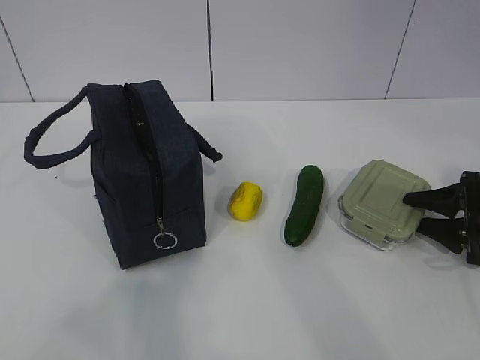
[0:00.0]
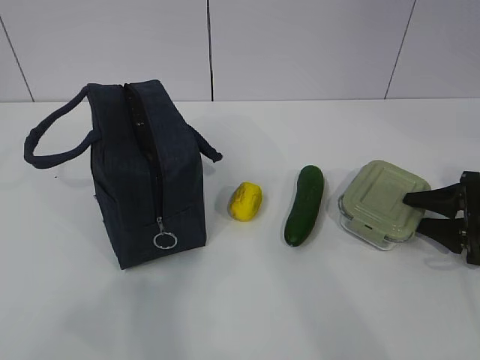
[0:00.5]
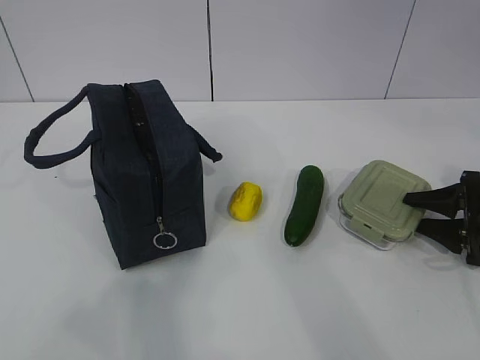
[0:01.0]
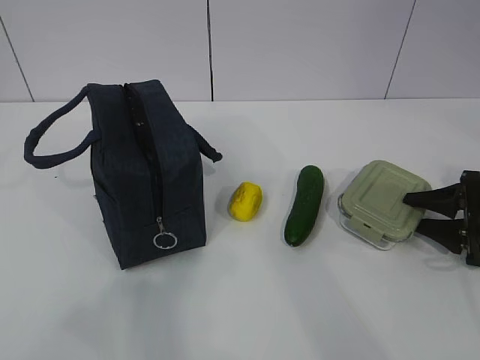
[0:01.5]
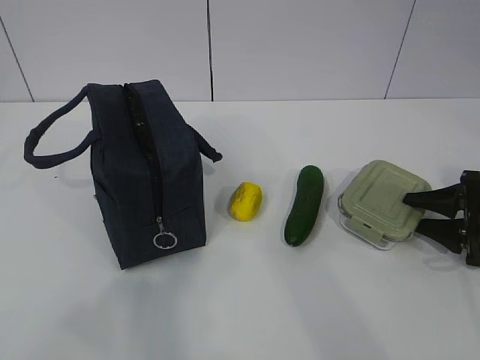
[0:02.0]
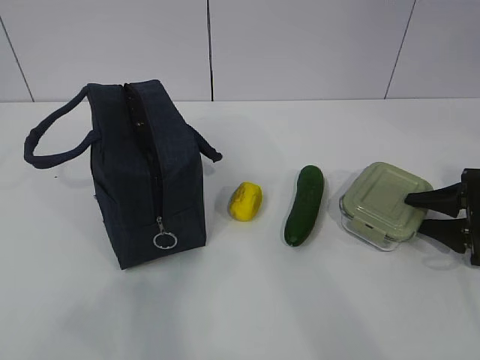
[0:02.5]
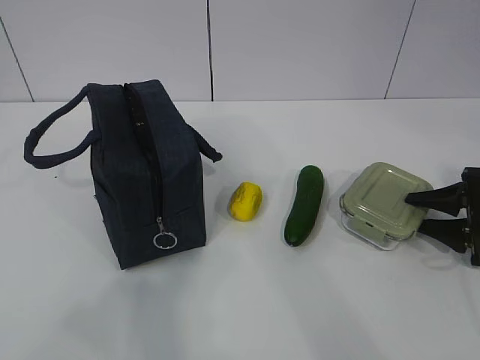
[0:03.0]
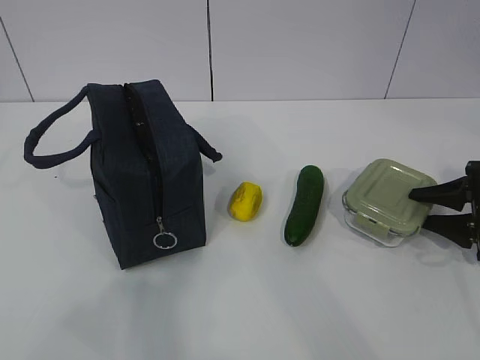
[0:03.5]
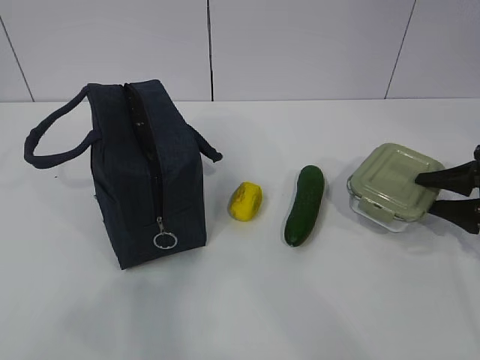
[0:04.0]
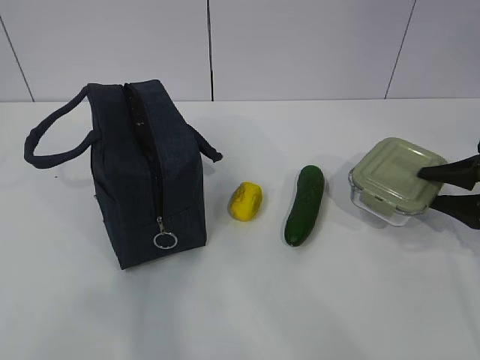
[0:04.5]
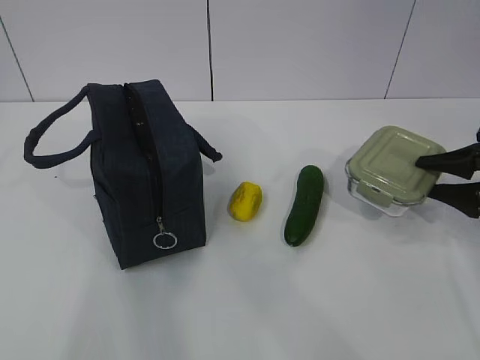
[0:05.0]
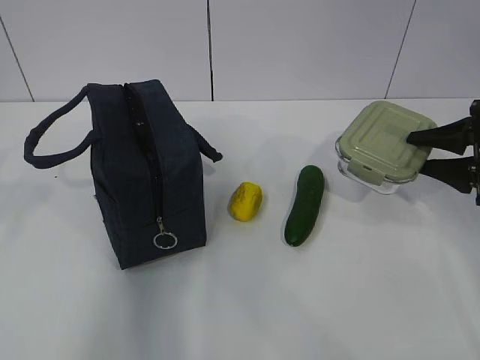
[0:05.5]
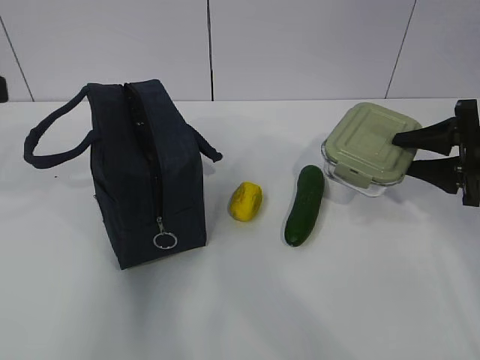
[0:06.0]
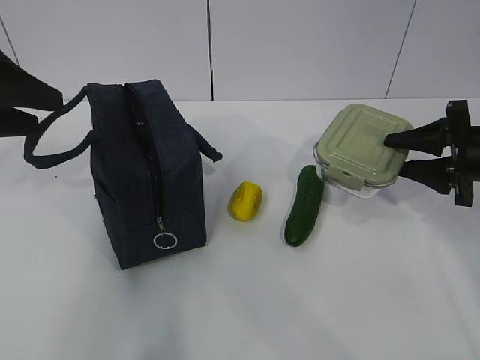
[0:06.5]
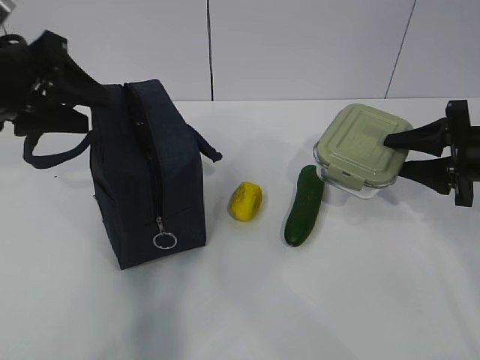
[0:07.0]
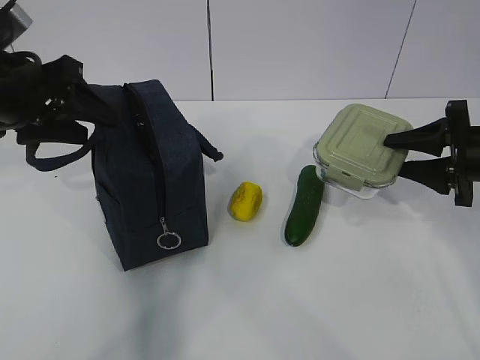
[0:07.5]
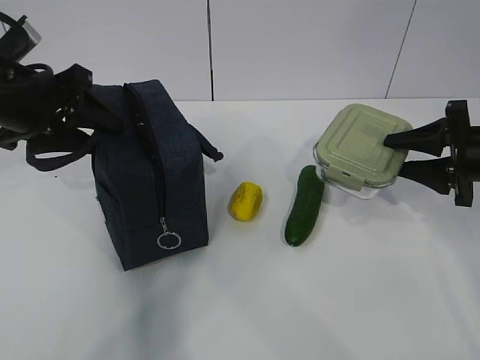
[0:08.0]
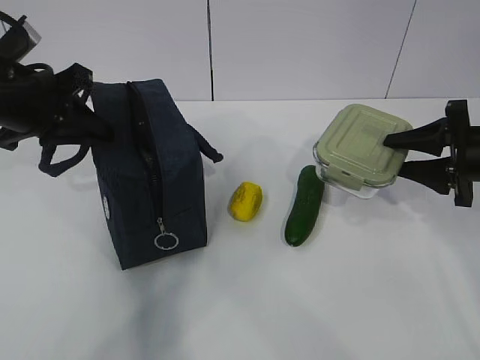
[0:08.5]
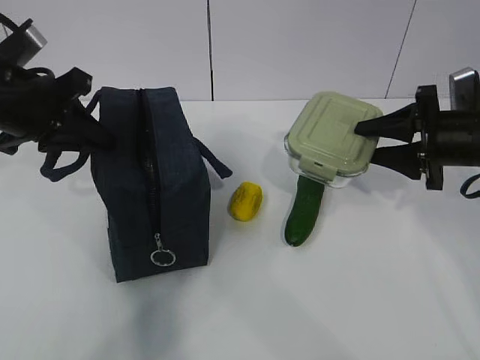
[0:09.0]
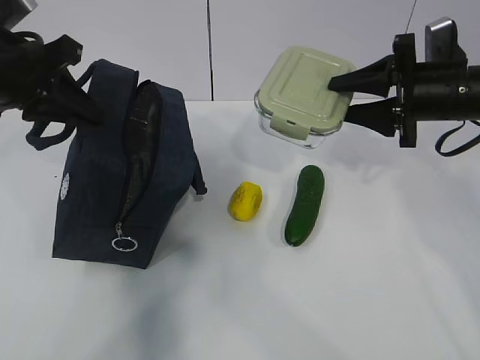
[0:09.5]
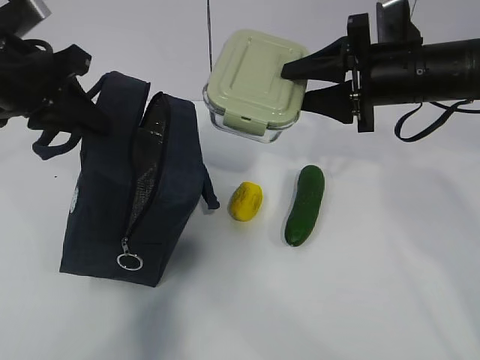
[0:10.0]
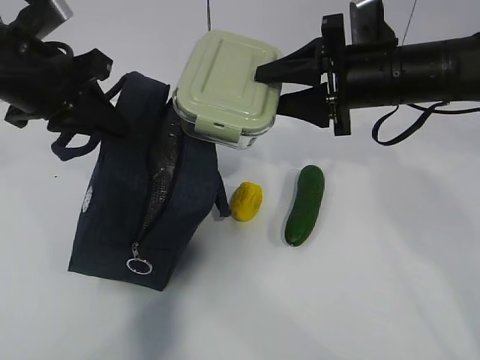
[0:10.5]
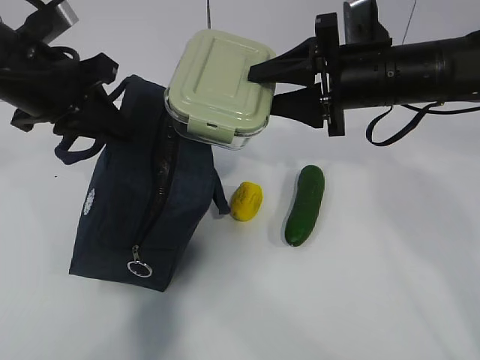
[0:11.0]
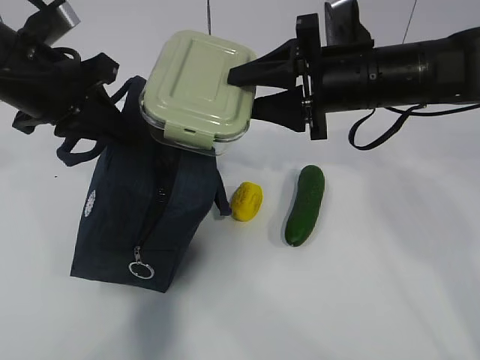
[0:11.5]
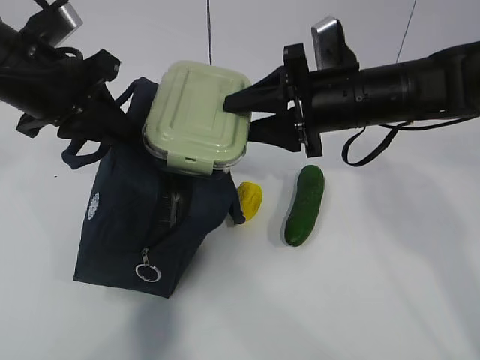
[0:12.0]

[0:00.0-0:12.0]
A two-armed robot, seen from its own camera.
Step, 0:00.0 to 0:06.5: Grab the lunch bag with your left hand.
Step, 0:07.0 to 0:09.5: Place it into the bag with your right hand.
0:00.0 to 0:02.0: Both grippers stay put.
0:02.0 to 0:04.0: The grippers stay close to where they were, moving slightly.
0:04.0 to 0:06.0: The right gripper travels upward by roughly 5 cm. Meanwhile the left gripper is displaced forward by some 20 cm.
0:06.0 to 0:08.0: The left gripper is displaced forward and downward by roughly 15 cm.
0:08.0 to 0:10.0: The left gripper closes its fingers. Meanwhile the right gripper travels to the left and upward by some 15 cm.
0:10.0 to 0:12.0: The right gripper is displaced to the left by approximately 5 cm.

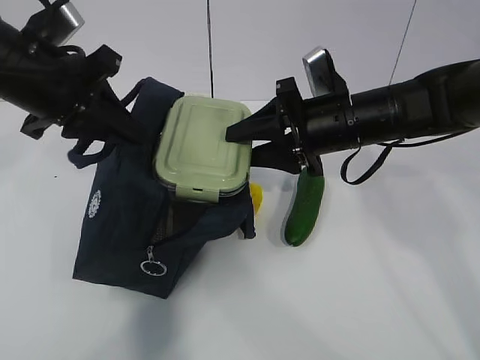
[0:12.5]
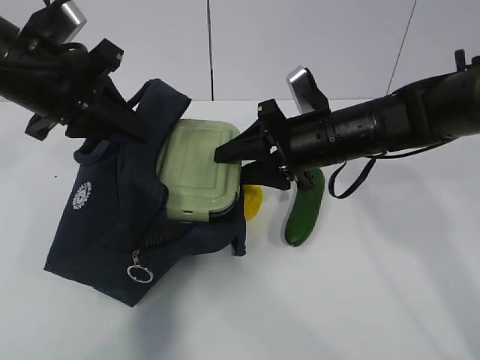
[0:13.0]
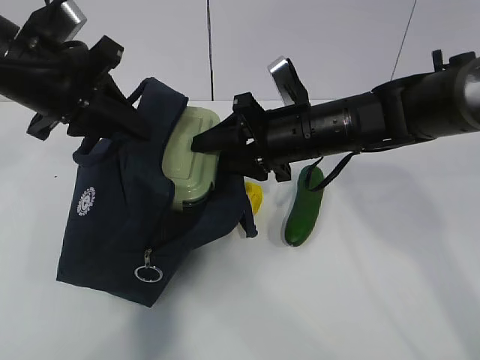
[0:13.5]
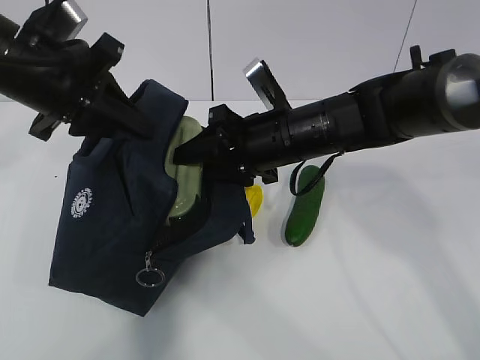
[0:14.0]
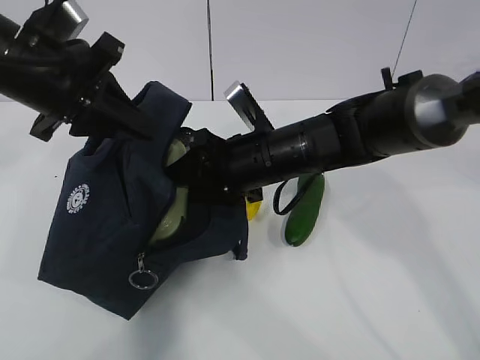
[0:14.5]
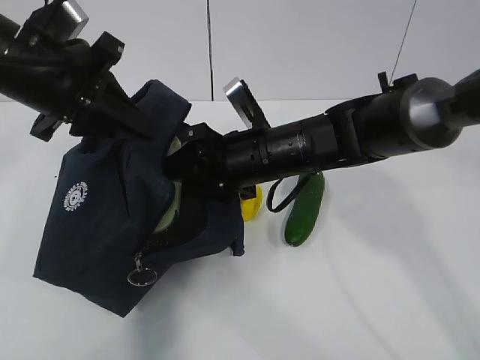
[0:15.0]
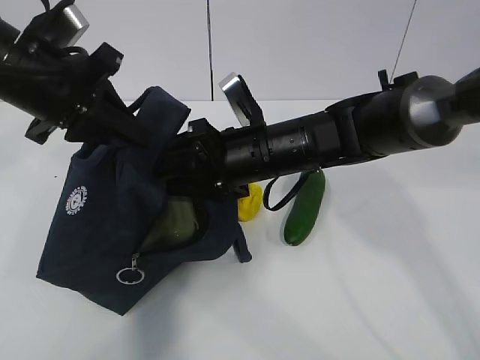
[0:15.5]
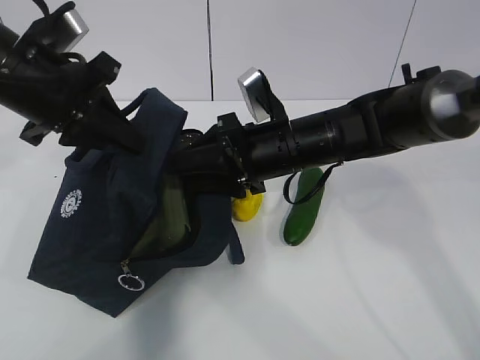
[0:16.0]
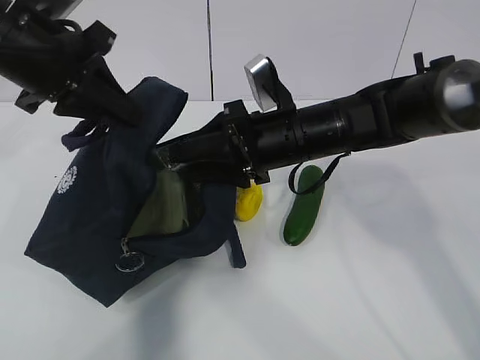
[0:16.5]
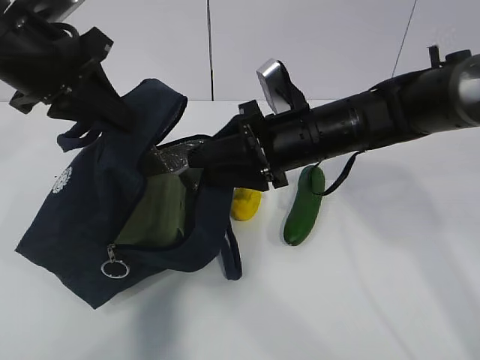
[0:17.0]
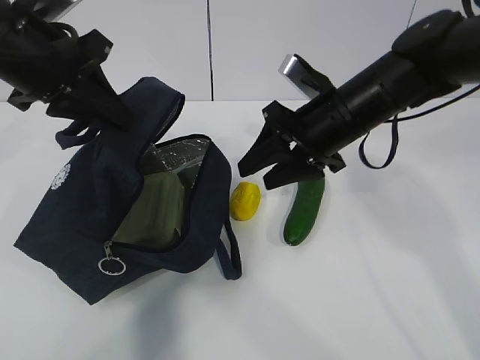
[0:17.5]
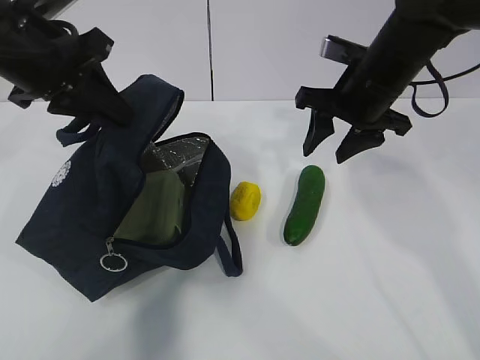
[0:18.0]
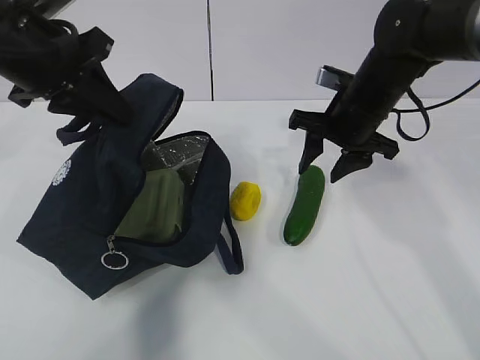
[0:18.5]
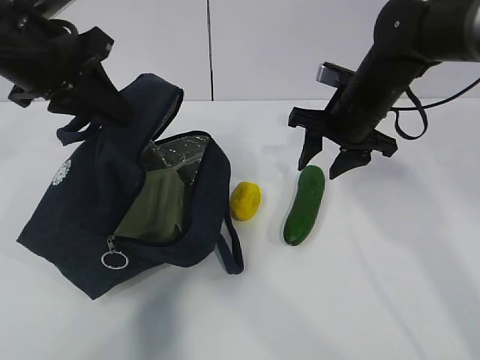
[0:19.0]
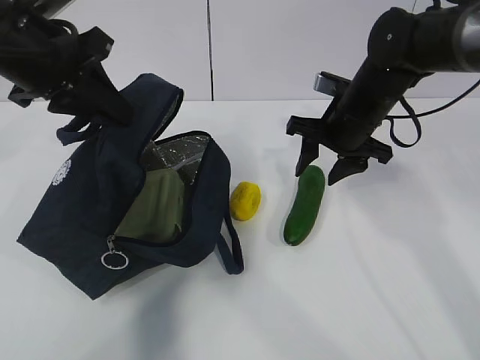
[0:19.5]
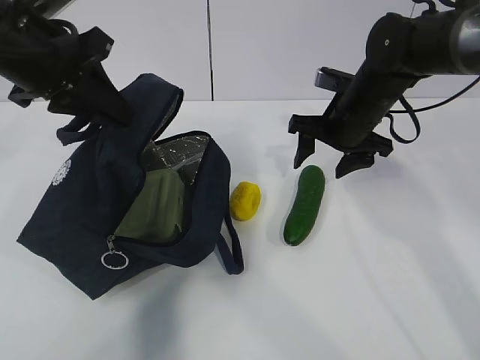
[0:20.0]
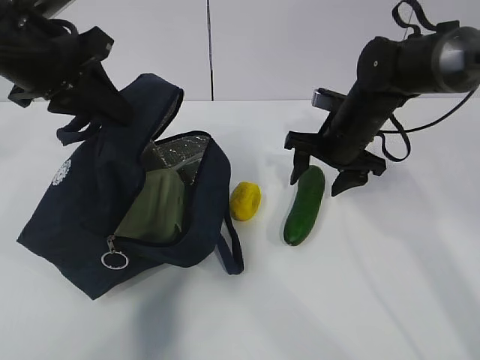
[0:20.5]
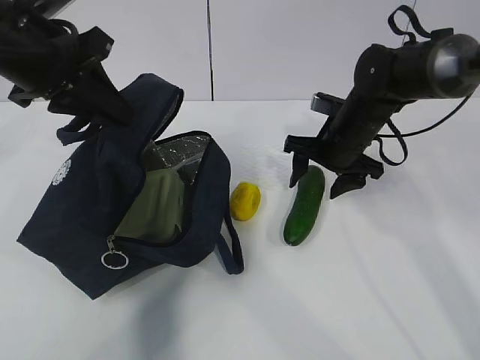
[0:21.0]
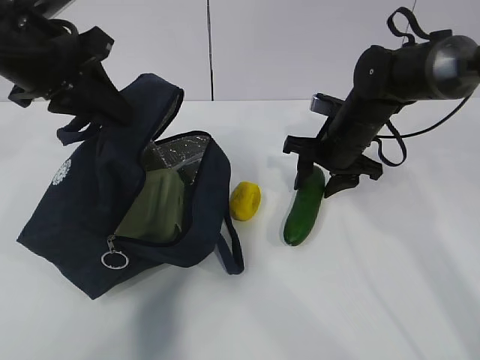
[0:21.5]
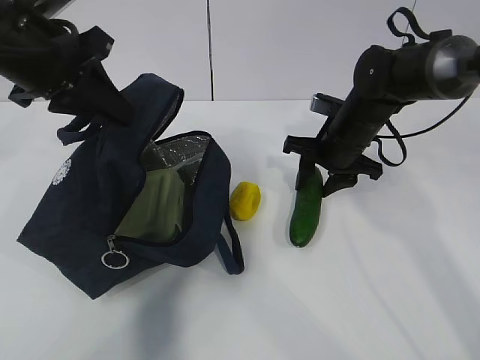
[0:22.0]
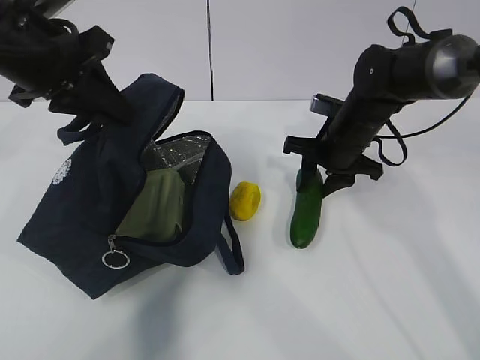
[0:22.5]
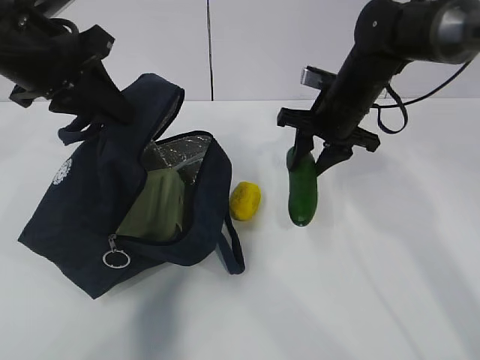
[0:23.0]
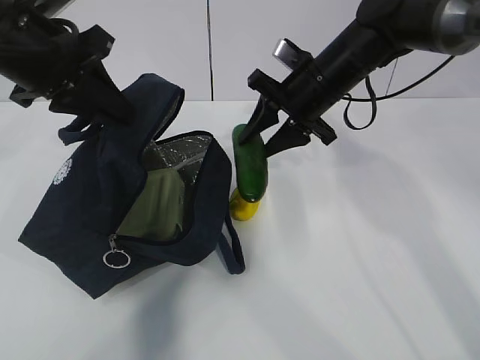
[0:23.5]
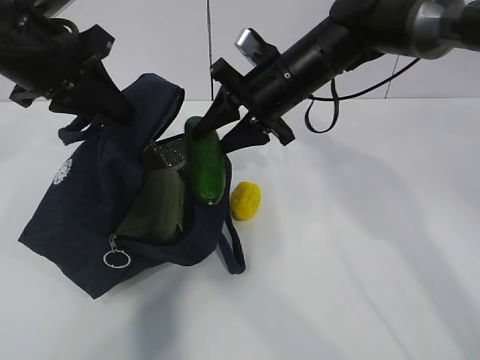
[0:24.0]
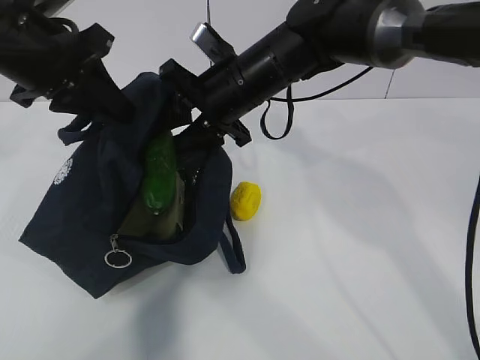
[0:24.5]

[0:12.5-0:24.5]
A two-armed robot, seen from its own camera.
Step, 0:12.5 to 0:15.5: Grab the cucumber with your right hand.
Step, 0:16.0 to 0:18.0: Place it into the bag with your right hand.
Step, 0:18.5 to 0:22.0: Grab the lemon with your right hand.
0:12.5 to 0:14.5: The right gripper travels to the left by some 10 cm.
0:14.5 to 0:16.5: There are only small adjustments of the grippers.
0:16.5 to 0:18.5: The right gripper heads to the right and forward, covering roughly 10 cm.
0:18.5 to 0:20.5: The right gripper changes place by some 5 cm.
0:20.5 to 0:22.5: The right gripper closes up.
0:22.5 to 0:24.5: The right gripper moves to the left and upward, about 15 cm.

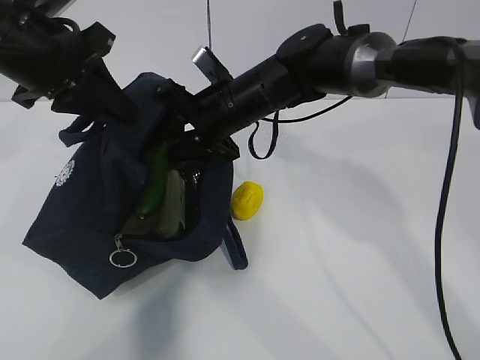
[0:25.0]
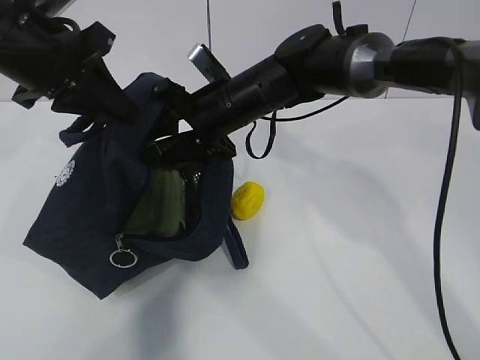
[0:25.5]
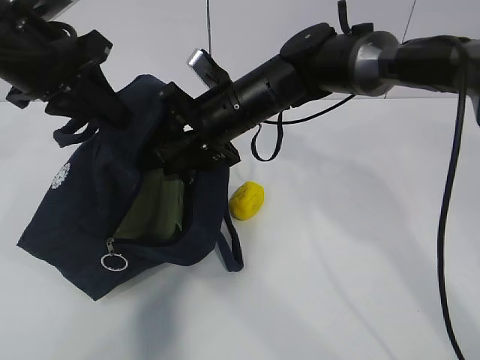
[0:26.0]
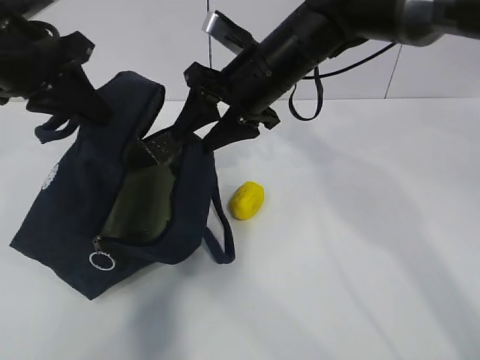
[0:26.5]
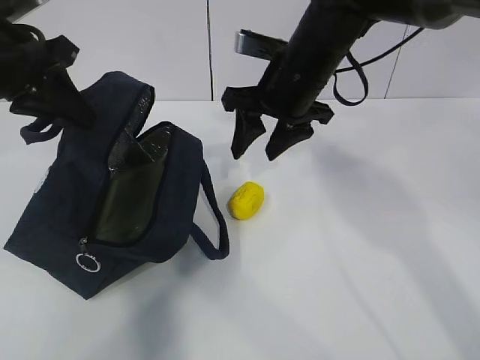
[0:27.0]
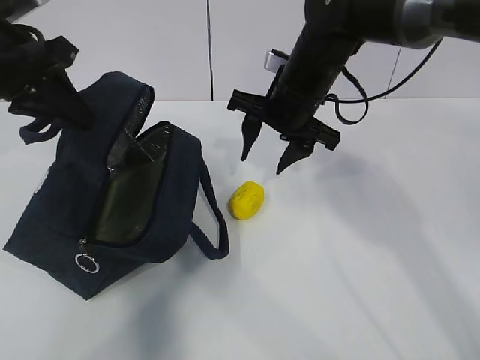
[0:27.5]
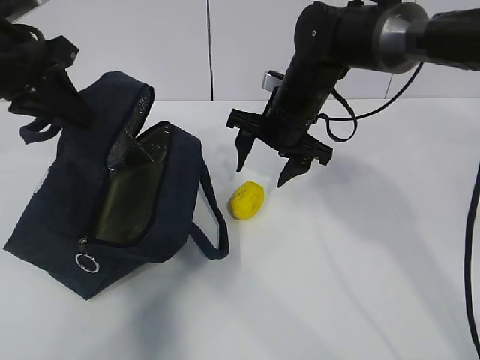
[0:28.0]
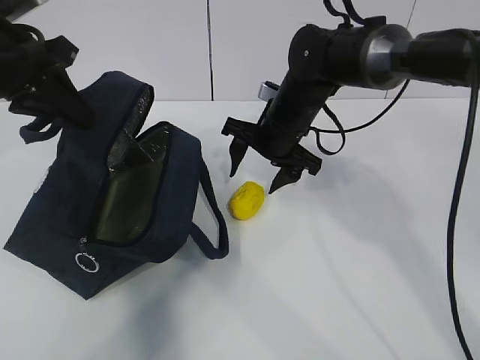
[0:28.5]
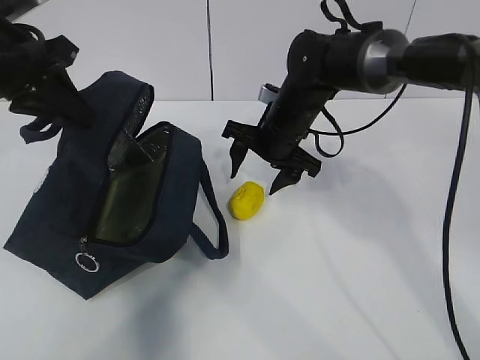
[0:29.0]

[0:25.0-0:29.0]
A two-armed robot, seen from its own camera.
Step, 0:25.0 to 0:27.5: Grab the lunch bag with your right hand.
0:25.0 to 0:27.0: The right gripper heads to the right and upward, covering roughly 10 cm.
0:27.0 to 0:29.0: The right gripper shifts approximately 10 cm downward.
